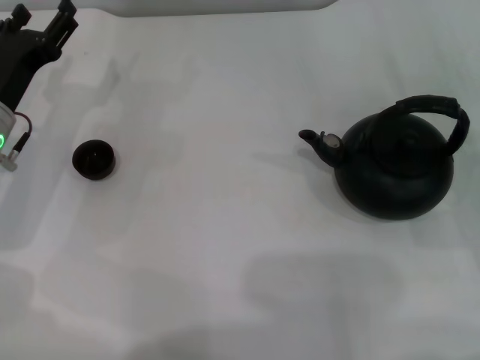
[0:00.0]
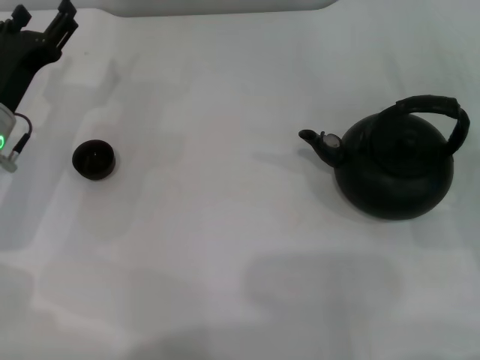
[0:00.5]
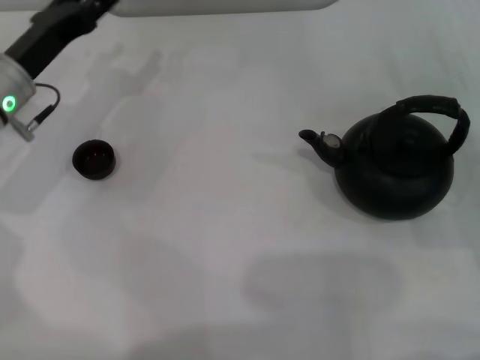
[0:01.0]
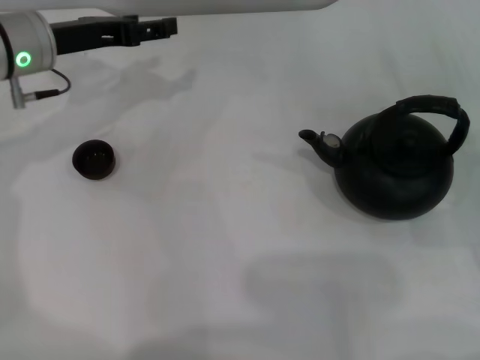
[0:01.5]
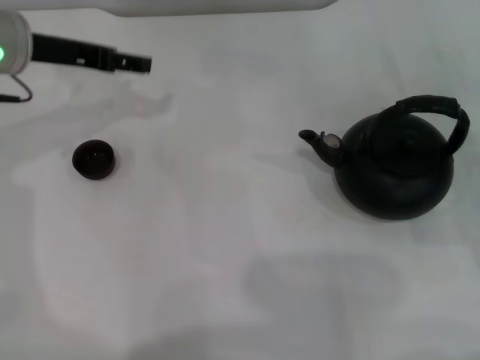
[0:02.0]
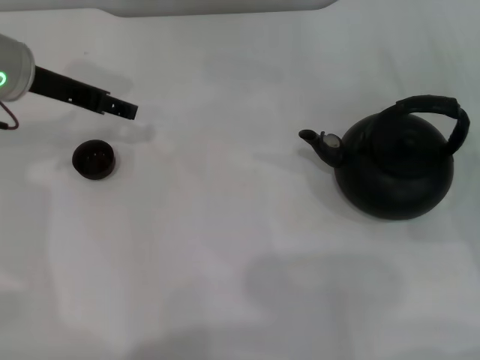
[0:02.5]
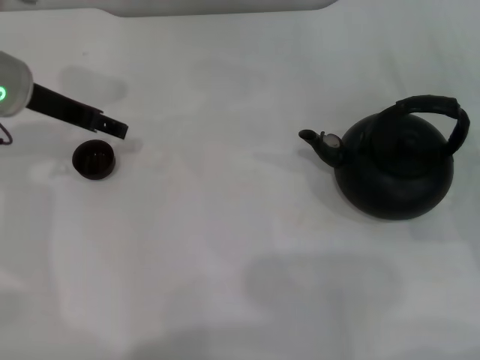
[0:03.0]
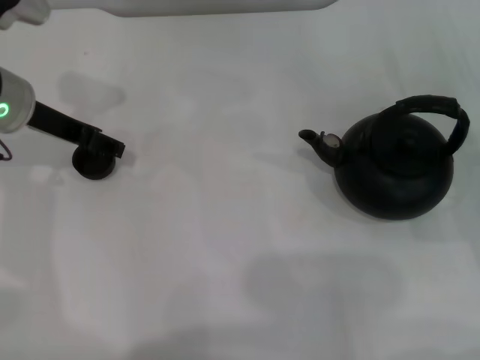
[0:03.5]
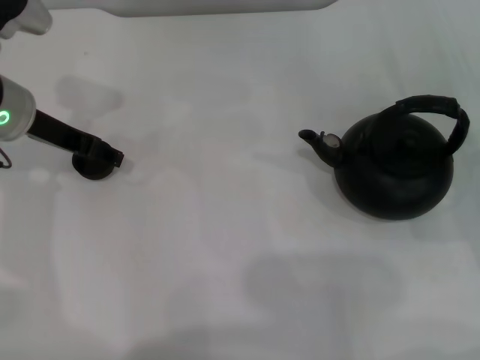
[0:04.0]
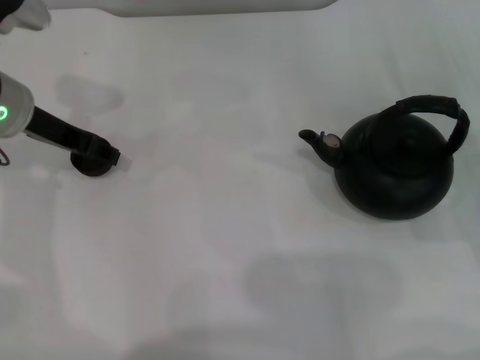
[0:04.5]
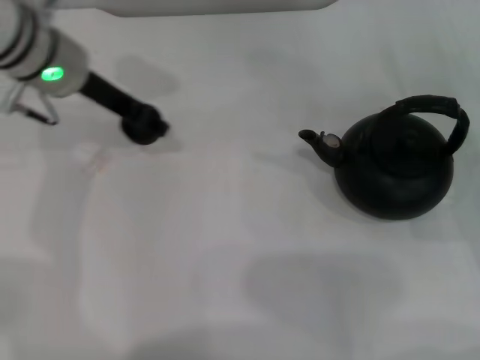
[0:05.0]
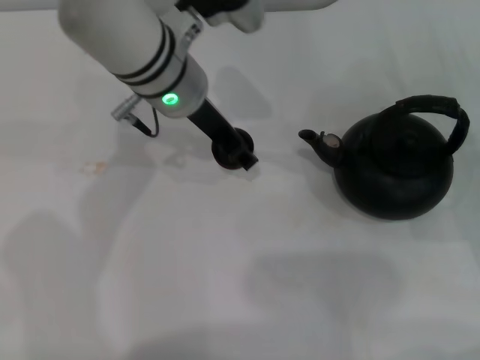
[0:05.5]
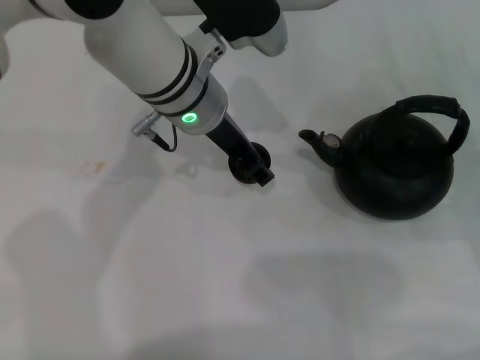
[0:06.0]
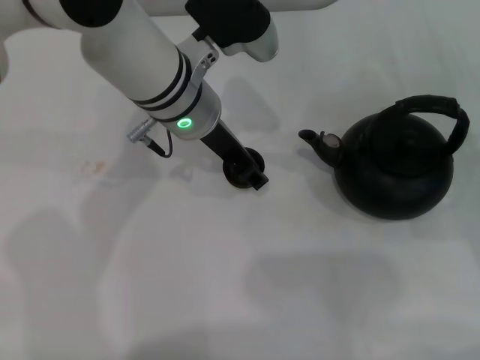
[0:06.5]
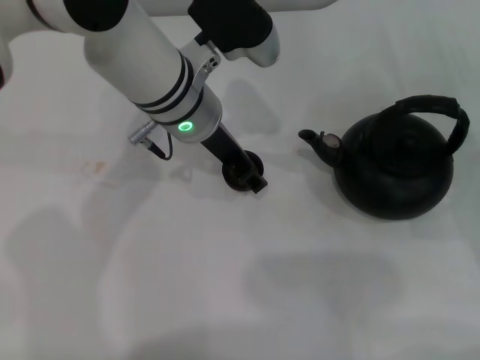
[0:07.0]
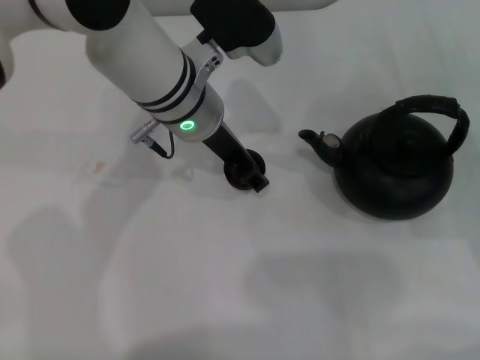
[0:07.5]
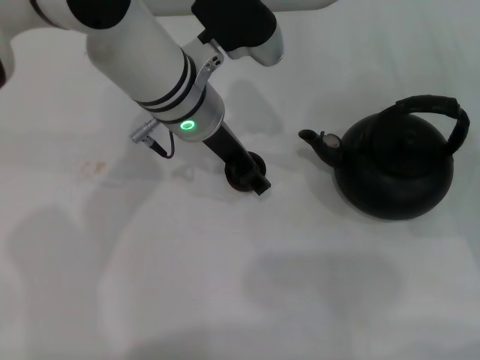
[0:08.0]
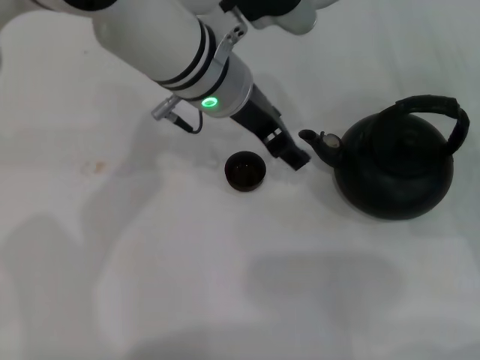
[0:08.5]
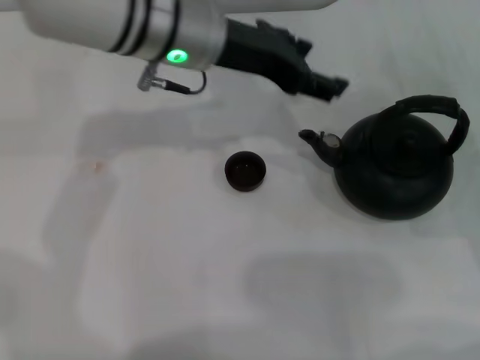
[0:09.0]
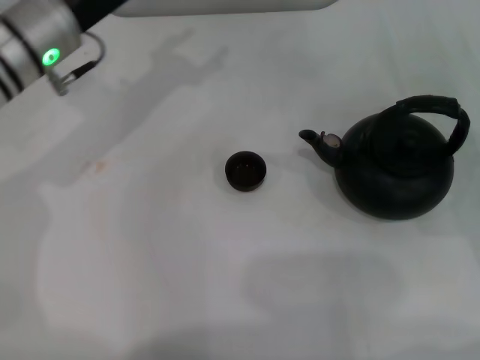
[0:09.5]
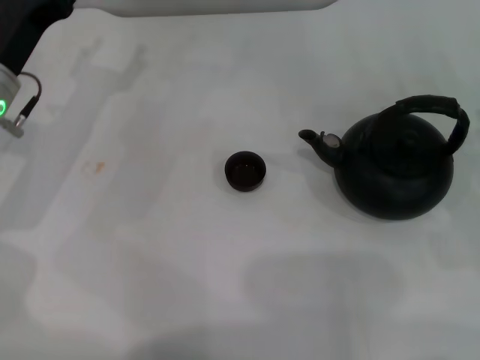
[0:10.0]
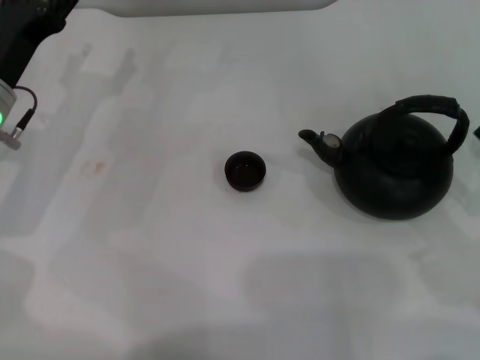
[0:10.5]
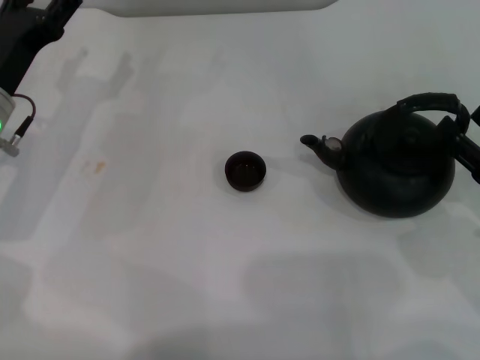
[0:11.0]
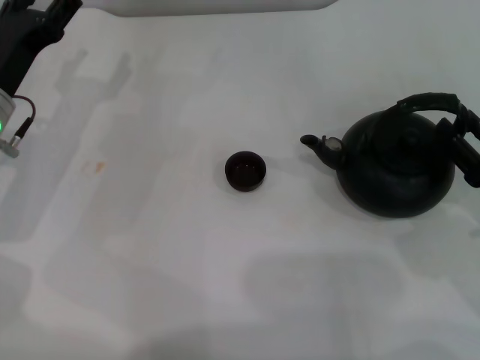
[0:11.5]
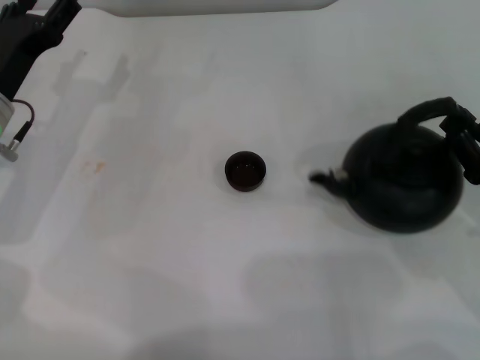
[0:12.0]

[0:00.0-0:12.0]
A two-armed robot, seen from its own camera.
Task of the whole recording: Grasp the handle of the teapot with one hand and pour tea into the teacup.
Step, 0:00.0 to 0:04.5: Pick up the teacup with the left gripper.
Step, 0:05.0 to 0:08.0: Place the teacup in the center of view with the left gripper.
0:00.0 to 0:02.0: The left gripper travels upward and forward by approximately 15 cm.
0:04.0 to 0:06.0: The left gripper goes roughly 20 cm to the right, and closes up.
0:06.0 to 0:08.0: The left gripper opens.
0:08.0 to 0:10.0: The left gripper shifts some 20 cm to the left, and opens its fingers.
0:10.0 to 0:12.0: The right gripper closes up.

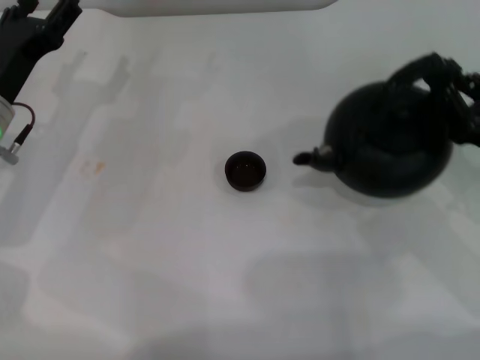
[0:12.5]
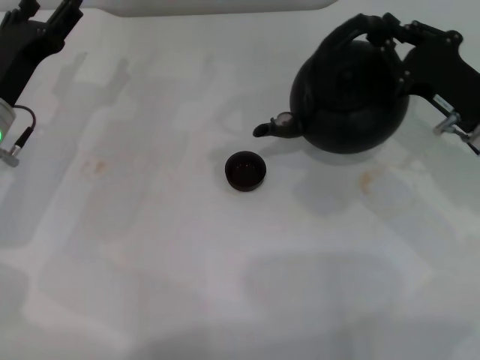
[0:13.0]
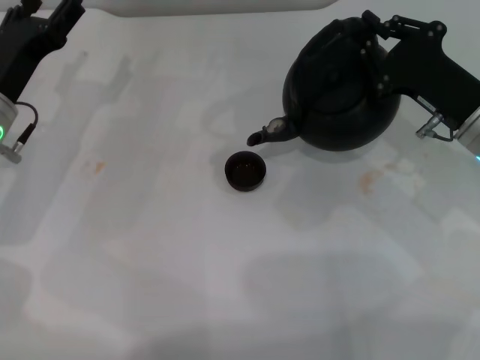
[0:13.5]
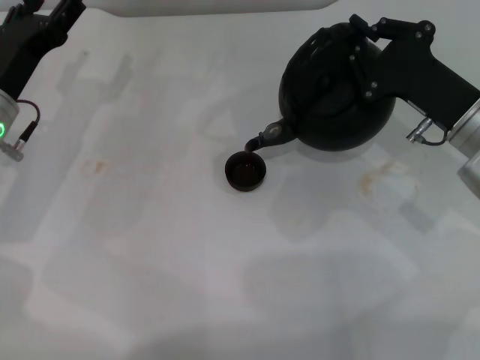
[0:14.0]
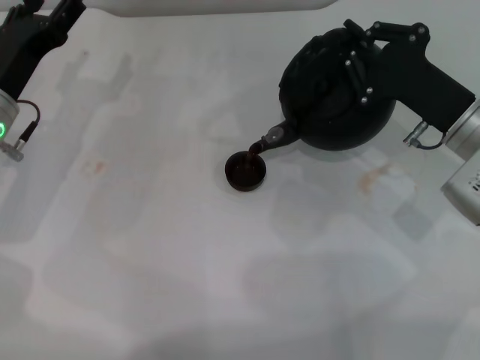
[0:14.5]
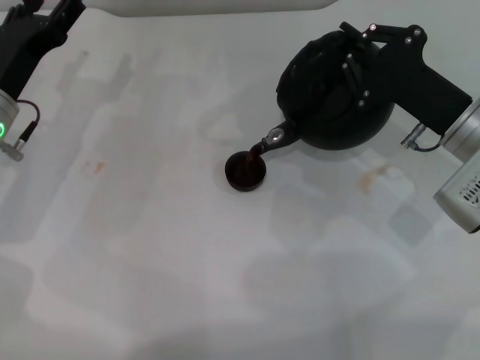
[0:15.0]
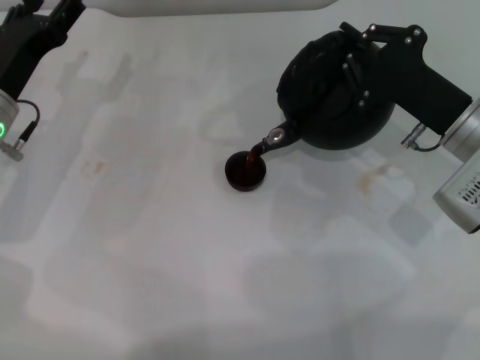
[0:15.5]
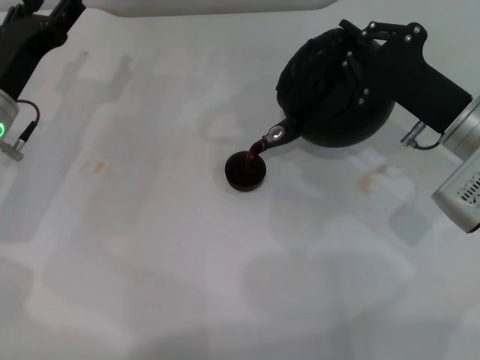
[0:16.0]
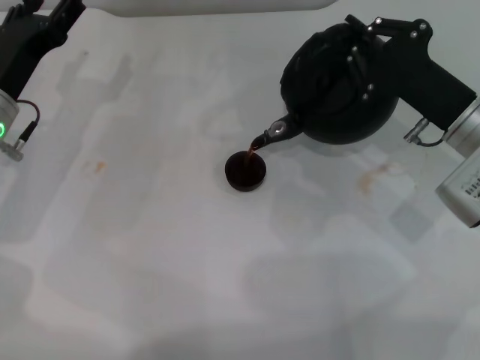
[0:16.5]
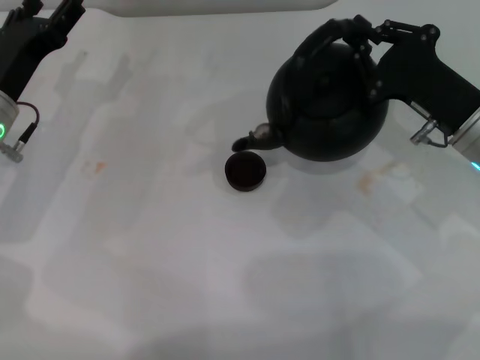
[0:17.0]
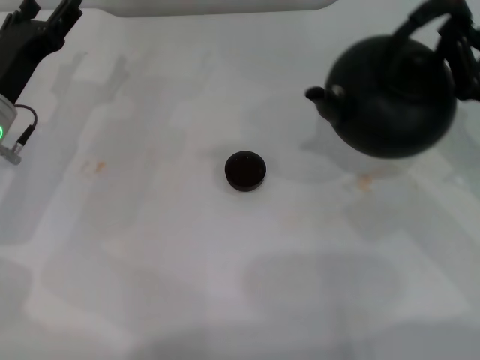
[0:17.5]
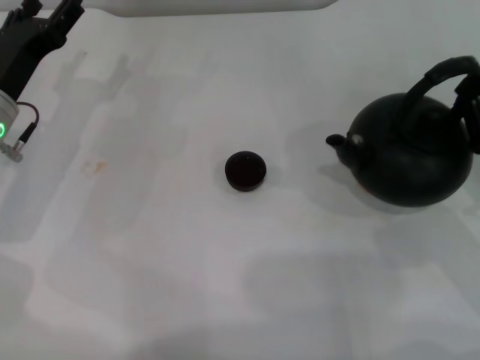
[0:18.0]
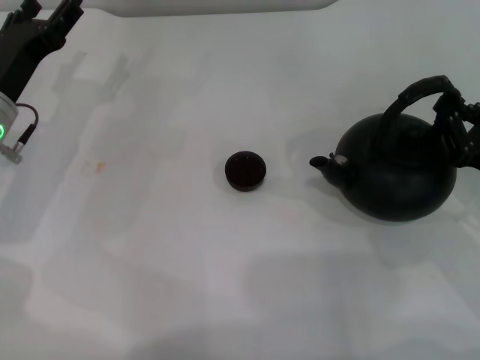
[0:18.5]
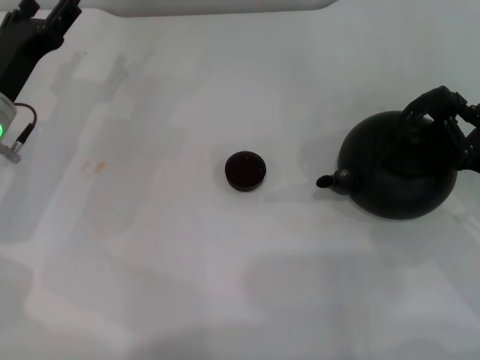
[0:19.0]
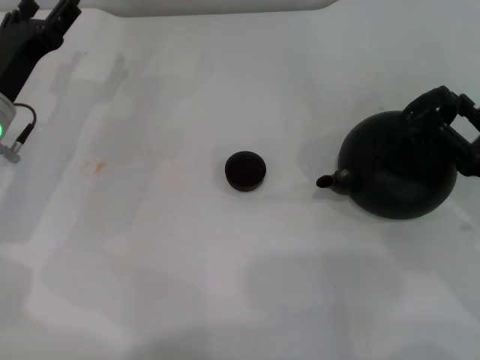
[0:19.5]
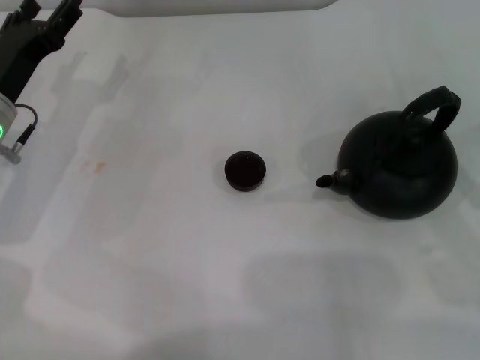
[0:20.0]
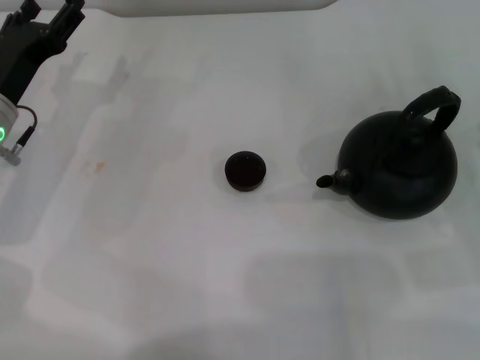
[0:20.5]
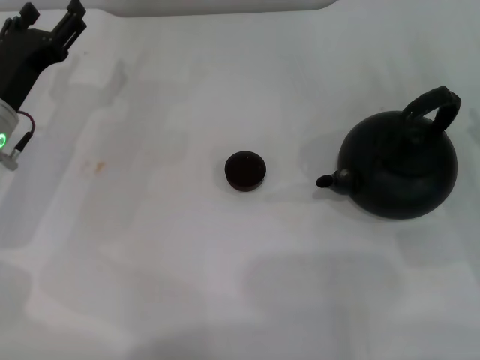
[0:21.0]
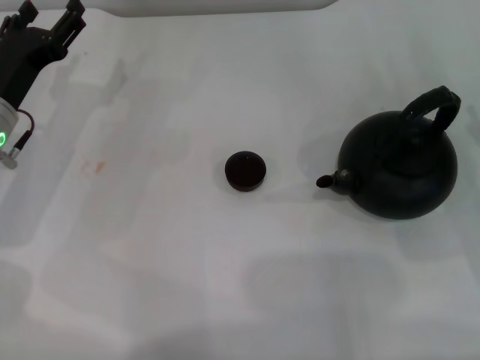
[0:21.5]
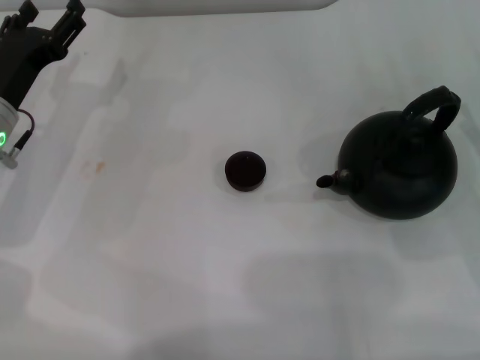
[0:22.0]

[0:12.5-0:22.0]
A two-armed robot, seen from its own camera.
Task of the whole recording: Grasp the handle of the teapot with one hand and pour tea into the teacup.
Step, 0:13.0 to 0:17.0: Pour tea into the teacup with the right gripper.
Step, 0:17.5 to 0:19.5: Put down the teapot with the right gripper.
0:12.5 to 0:14.5: The right gripper shifts roughly 10 cm forward and to the left.
0:14.5 to 0:16.5: There are only small adjustments of the grippers.
0:16.5 to 0:18.0: The right gripper goes approximately 10 cm to the right and backward.
0:18.0 to 0:20.0: The right gripper moves about 5 cm, and opens.
